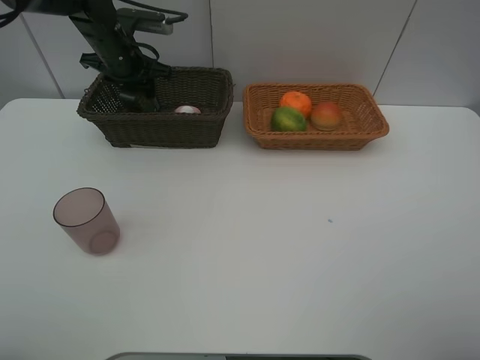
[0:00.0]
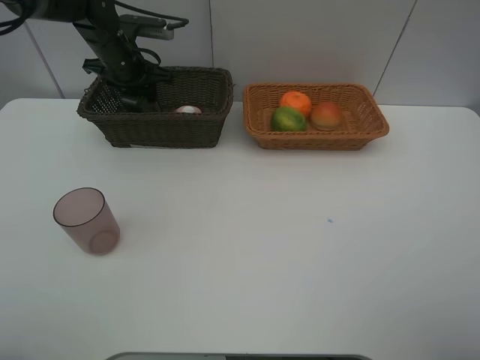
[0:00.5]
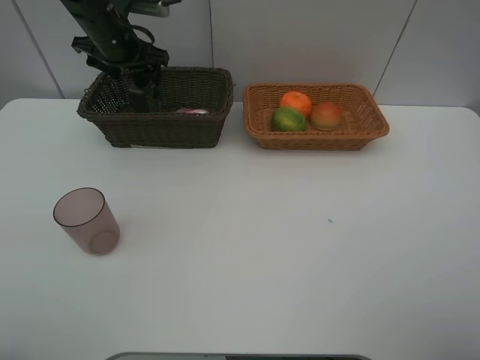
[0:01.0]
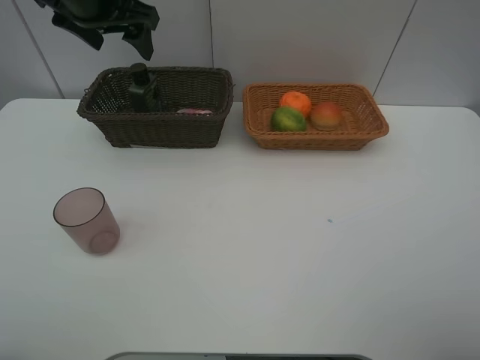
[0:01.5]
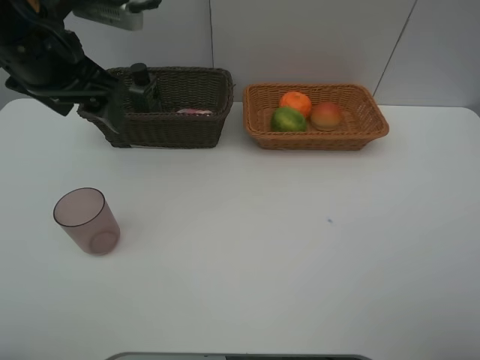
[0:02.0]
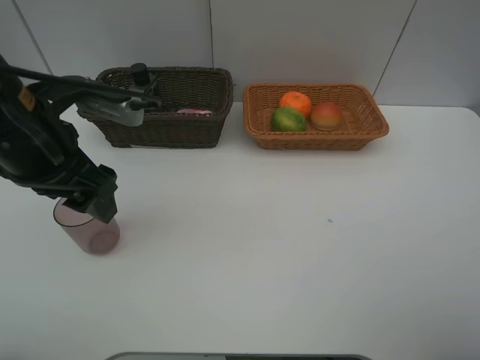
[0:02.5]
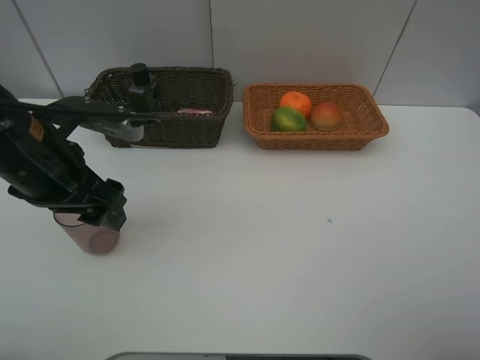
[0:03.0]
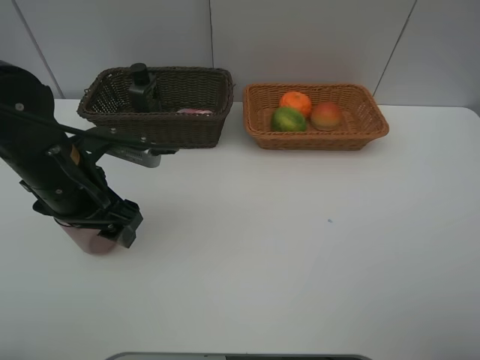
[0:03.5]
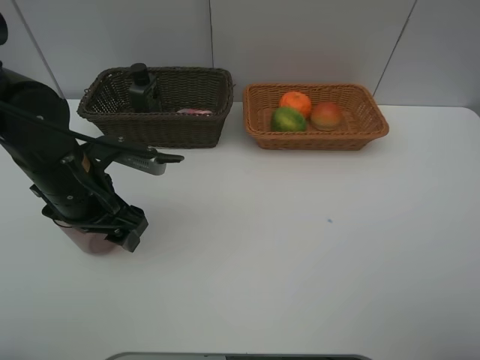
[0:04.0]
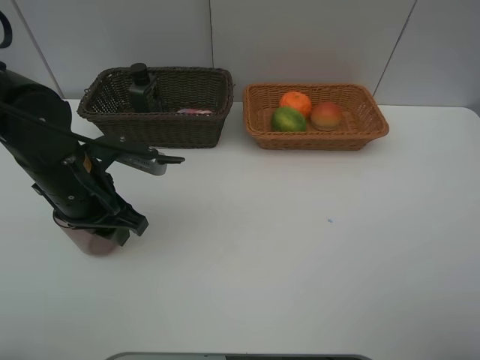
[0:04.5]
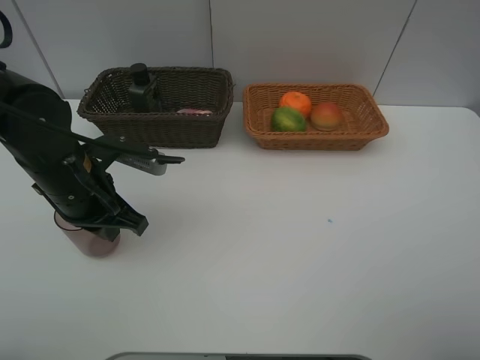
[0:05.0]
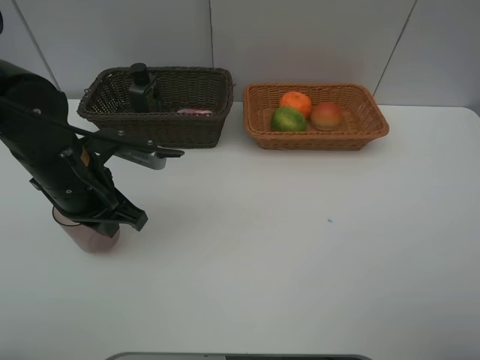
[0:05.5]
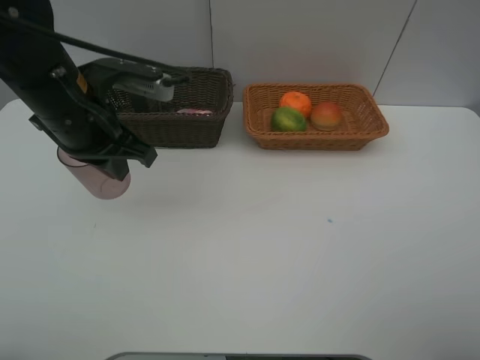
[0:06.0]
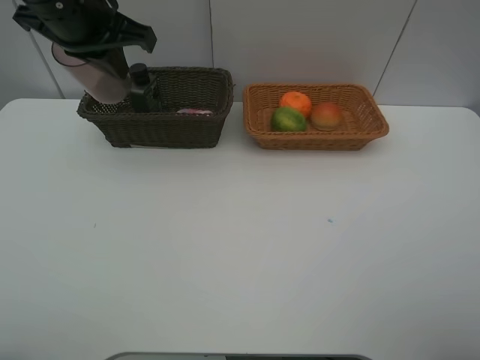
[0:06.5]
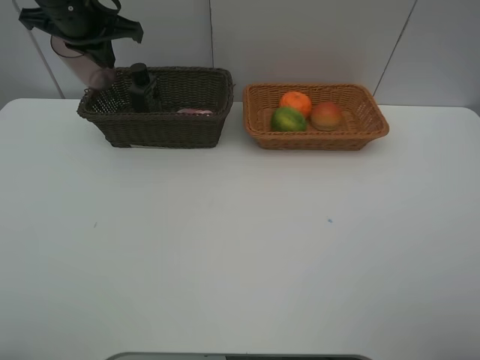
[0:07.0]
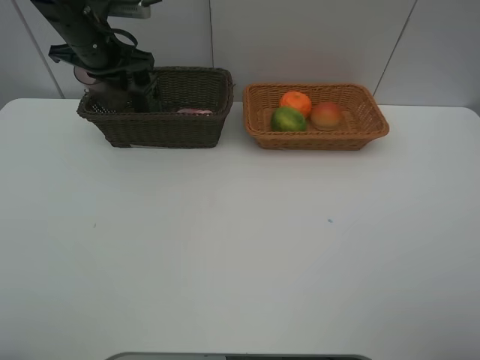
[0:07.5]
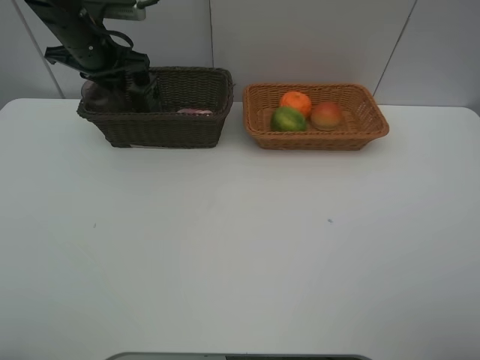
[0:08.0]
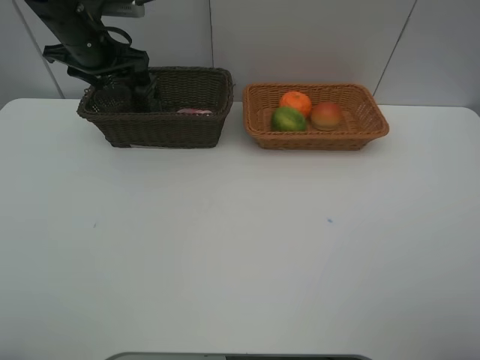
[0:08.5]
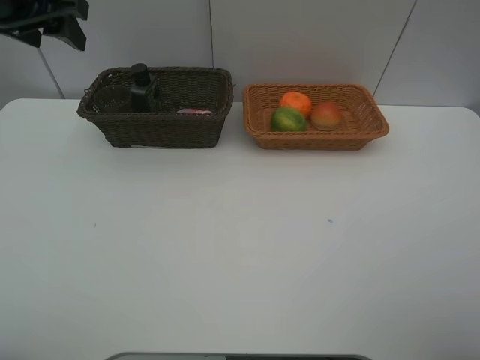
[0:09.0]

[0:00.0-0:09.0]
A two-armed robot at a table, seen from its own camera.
Task of the whole recording: place multiple objects separately in different baskets.
0.0 to 2.0 s: The left gripper is displaced backward and upward by roughly 25 cm, and opens up.
2.0 to 4.5 s: The left gripper moves downward, approximately 15 cm, and closes.
4.5 to 7.0 s: The left gripper travels forward and upward by roughly 25 cm, and closes up.
7.0 to 9.0 s: The left gripper is displaced backward and upward by about 10 cm, and opens its fingers.

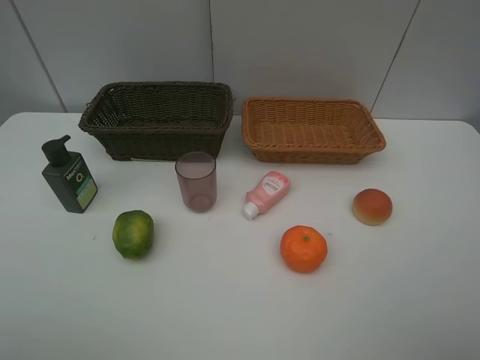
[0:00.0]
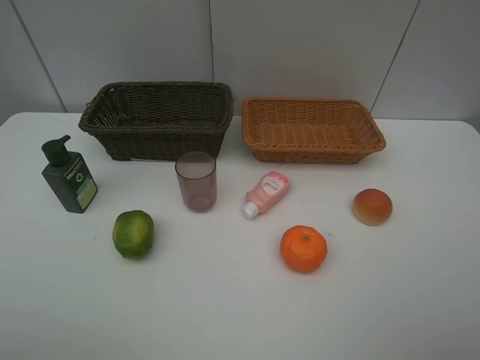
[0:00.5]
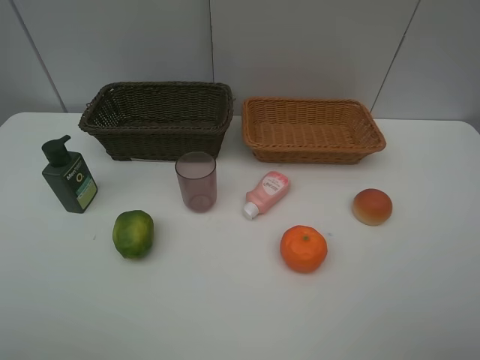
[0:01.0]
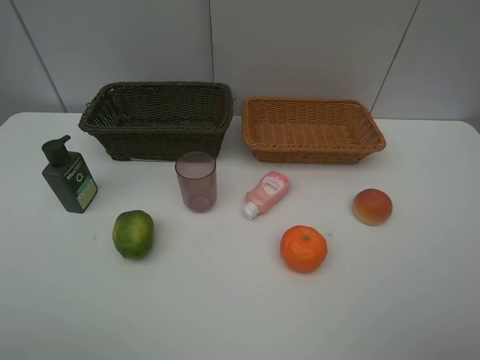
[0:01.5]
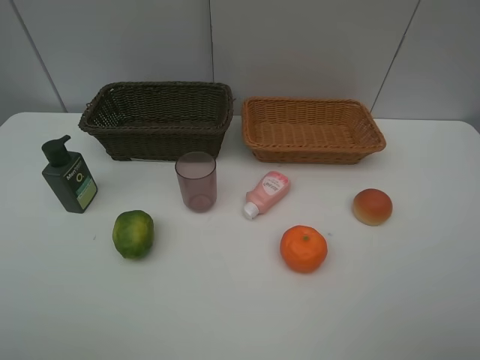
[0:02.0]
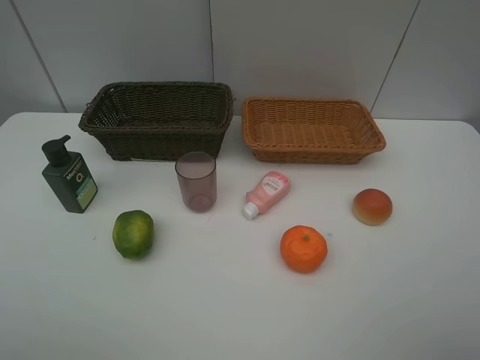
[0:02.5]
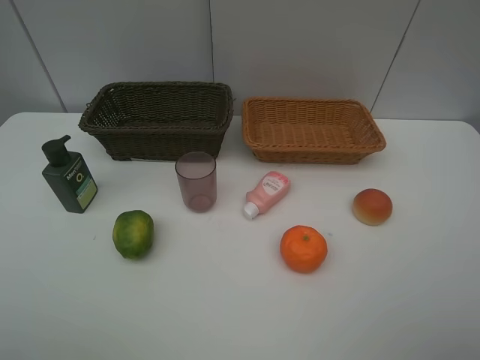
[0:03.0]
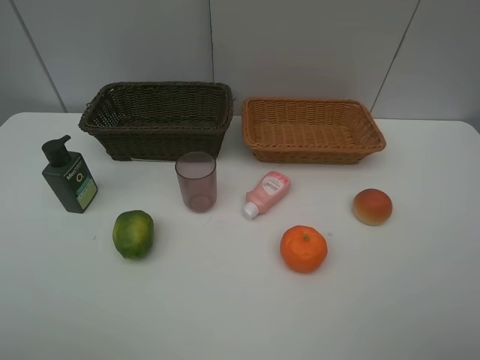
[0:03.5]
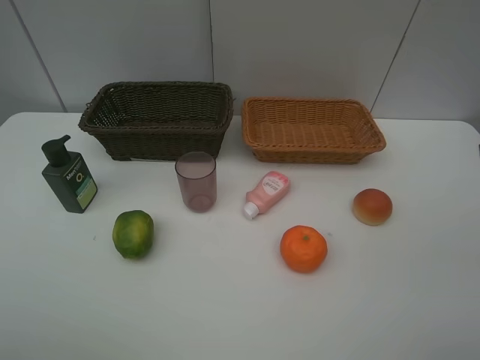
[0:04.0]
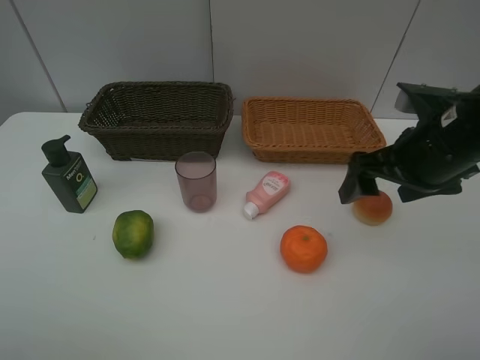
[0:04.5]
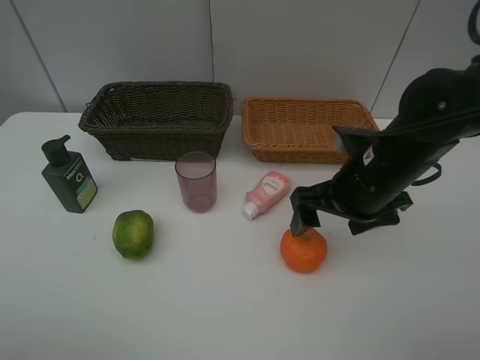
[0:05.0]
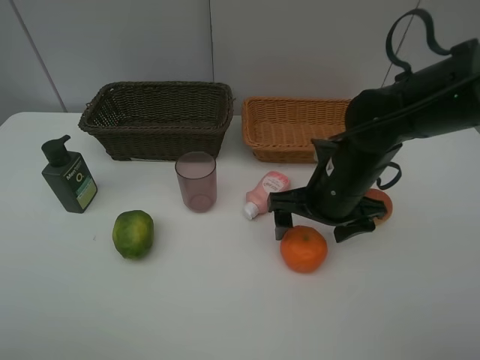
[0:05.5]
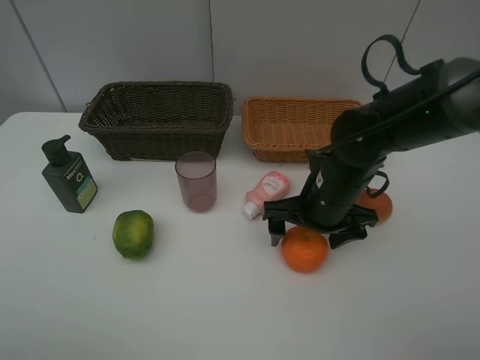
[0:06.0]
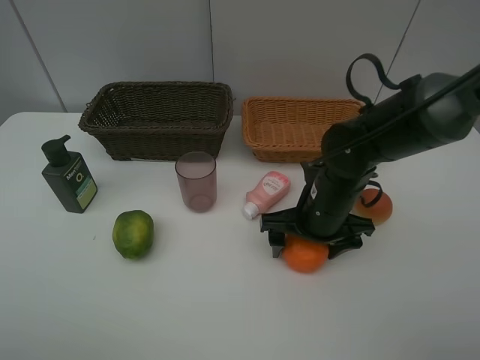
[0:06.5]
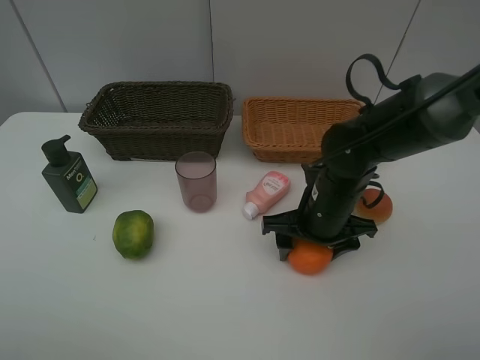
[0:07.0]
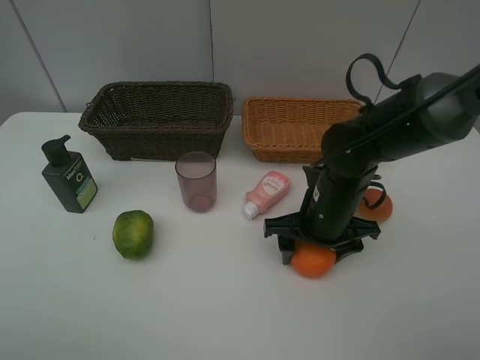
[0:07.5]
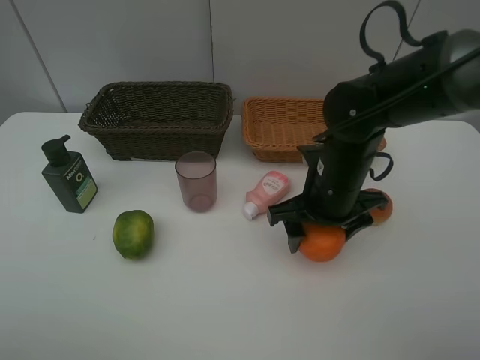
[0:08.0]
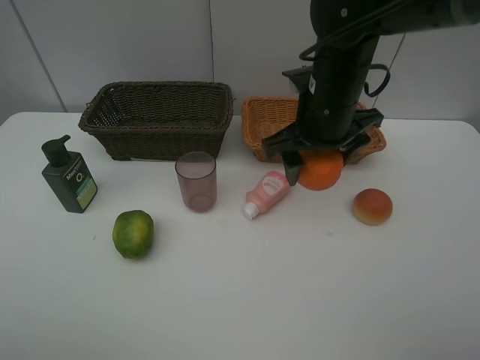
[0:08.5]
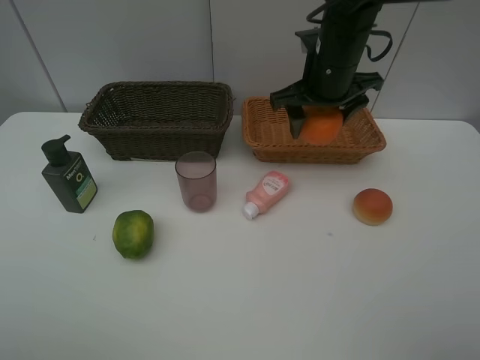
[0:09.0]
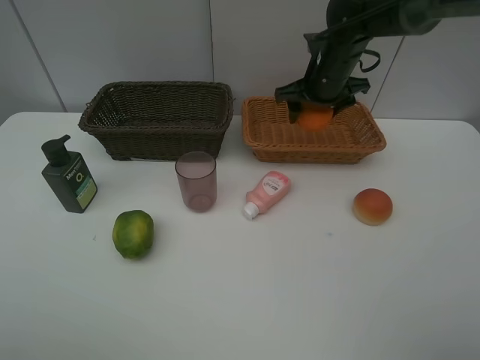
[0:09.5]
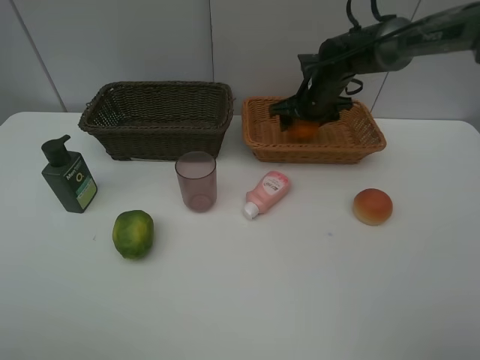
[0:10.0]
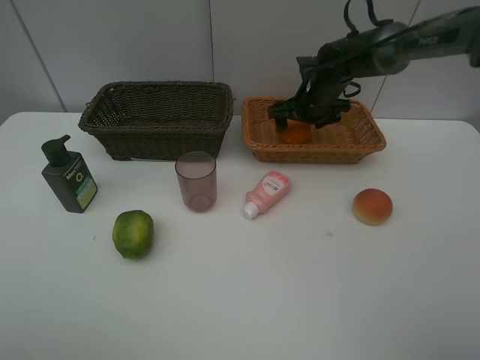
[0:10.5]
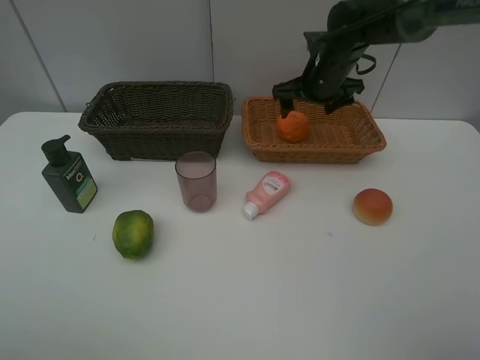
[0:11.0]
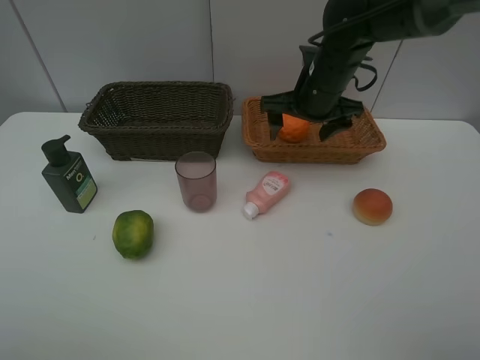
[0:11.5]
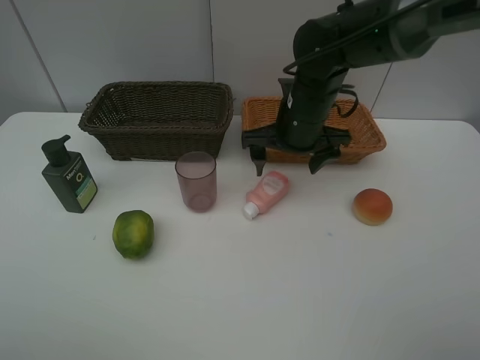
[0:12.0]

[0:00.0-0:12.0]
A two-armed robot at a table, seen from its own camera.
Task of the whole recording: place multiple objects separately in different baskets.
0.0 to 2.0 s: The two grippers keep their place.
4.0 to 6.0 s: The right gripper travels downward, to the left and forward by approximately 25 cm.
6.0 to 8.0 s: The right gripper closes up.
8.0 to 10.0 s: The right gripper goes about 20 cm forward.
10.0 to 12.0 s: The right gripper heads backward and to the left, covering some 15 cm, and opens its fingers.

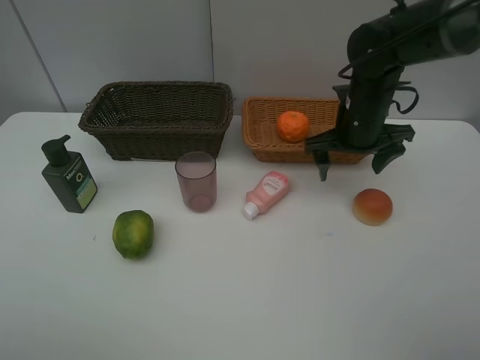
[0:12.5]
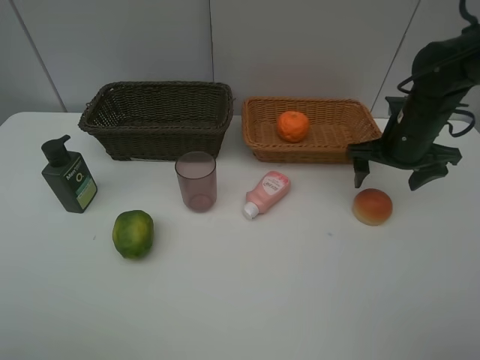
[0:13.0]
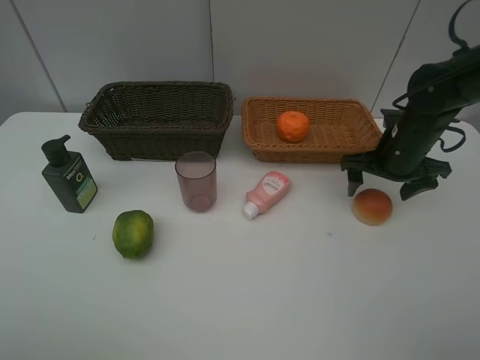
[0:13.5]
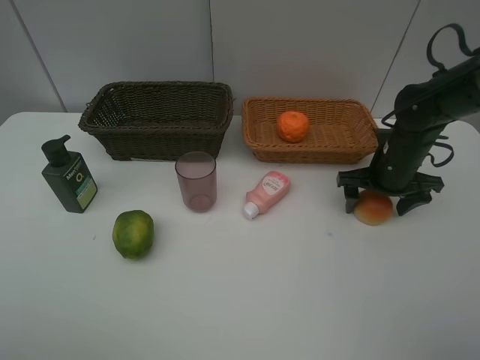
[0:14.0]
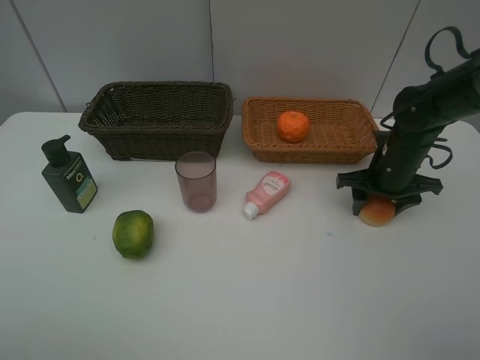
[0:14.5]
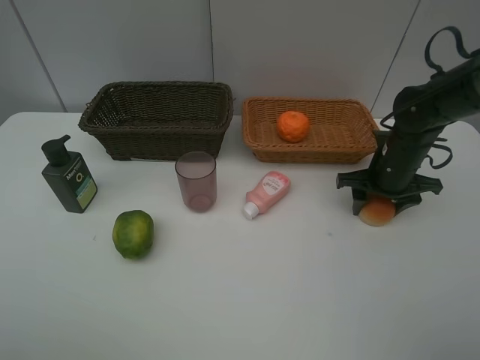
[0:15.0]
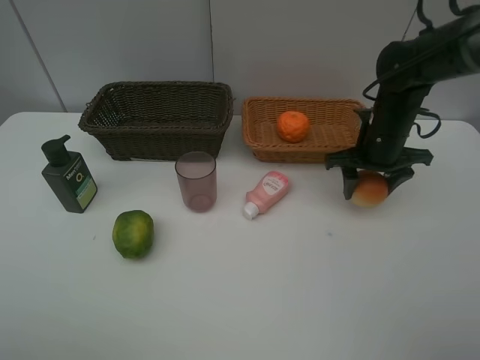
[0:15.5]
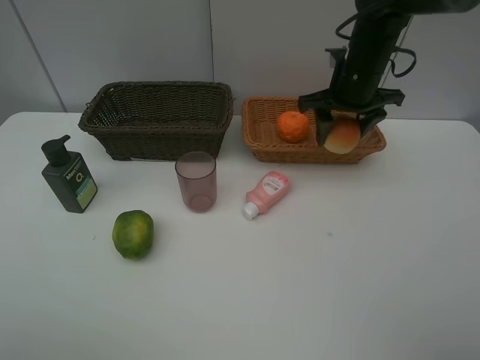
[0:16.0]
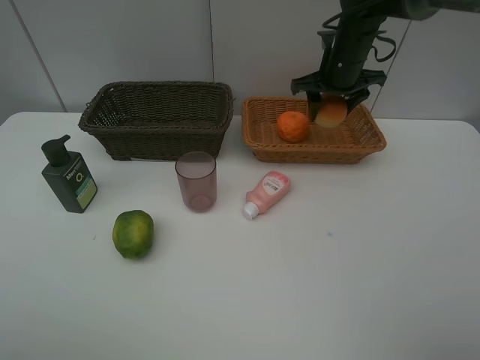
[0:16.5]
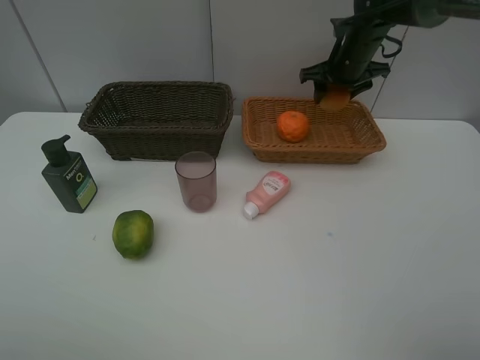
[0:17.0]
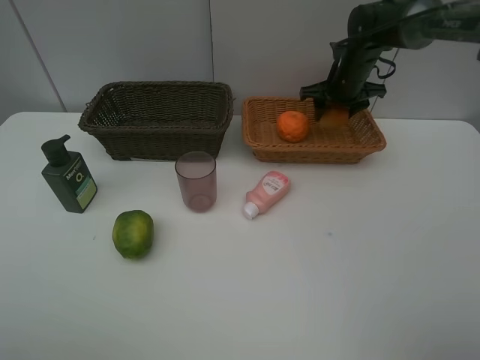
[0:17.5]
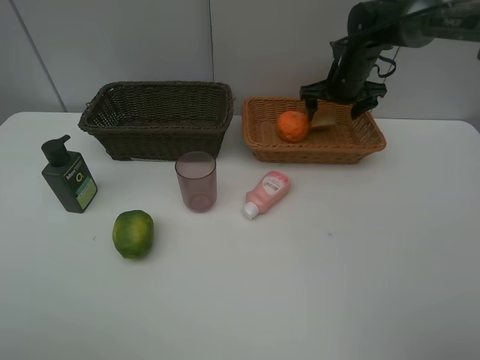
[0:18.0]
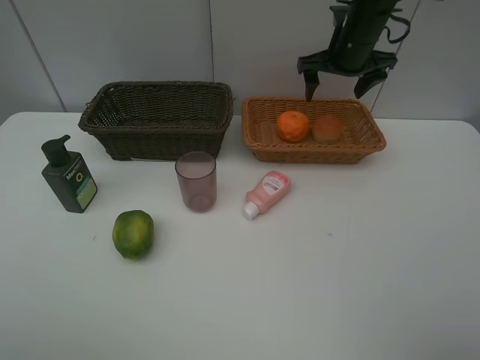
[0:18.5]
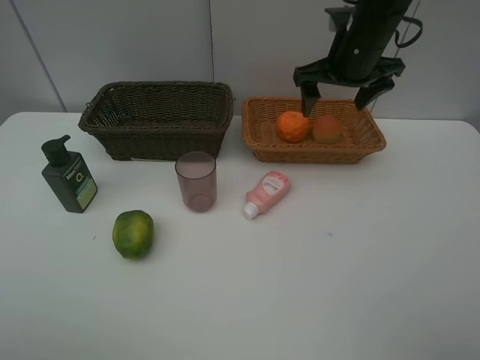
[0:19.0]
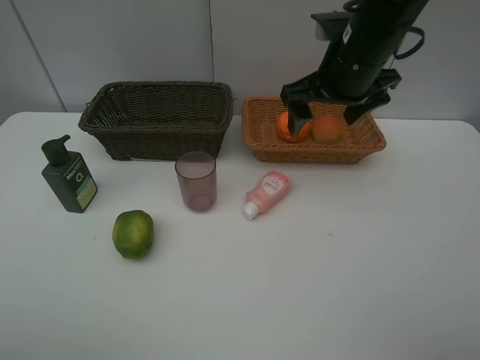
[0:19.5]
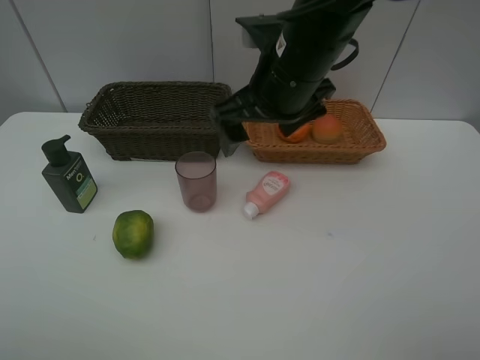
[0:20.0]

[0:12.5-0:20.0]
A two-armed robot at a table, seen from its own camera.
Task of the whole recording: place multiple objects separately in different baskets.
12.5 to 14.5 s: The right gripper goes approximately 10 cm downward and to the right, and closes.
14.5 to 16.5 s: The right gripper is displaced forward, upward and to the left by roughly 20 cm.
16.5 to 18.0 s: The right gripper ends up about 5 cm from where it was, and opens its fingers.
18.0 to 20.0 s: The right gripper shifts about 30 cm backward, to the left and upward.
